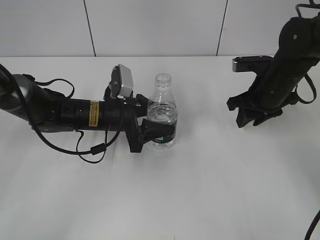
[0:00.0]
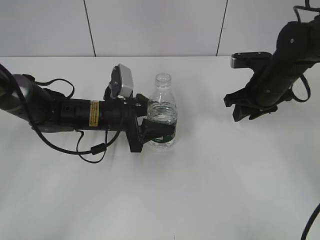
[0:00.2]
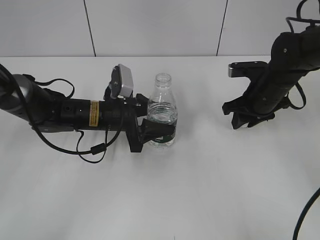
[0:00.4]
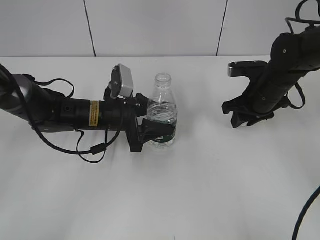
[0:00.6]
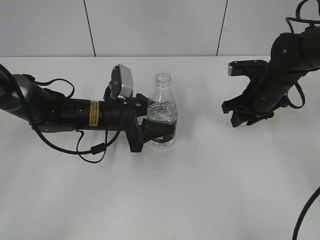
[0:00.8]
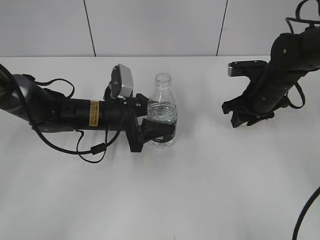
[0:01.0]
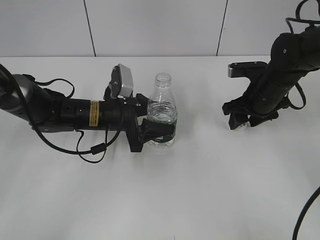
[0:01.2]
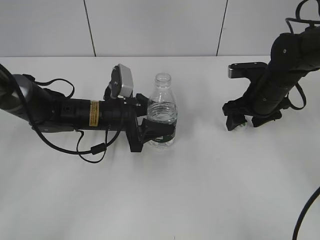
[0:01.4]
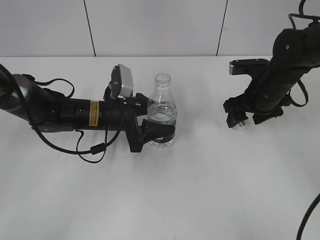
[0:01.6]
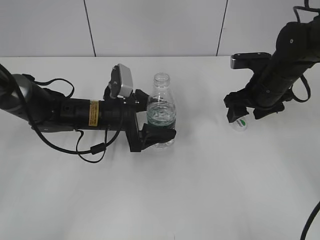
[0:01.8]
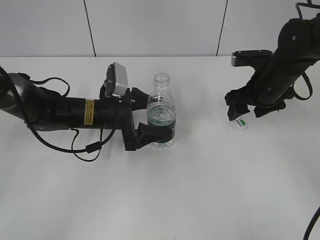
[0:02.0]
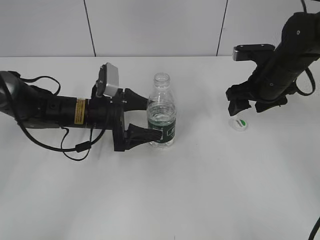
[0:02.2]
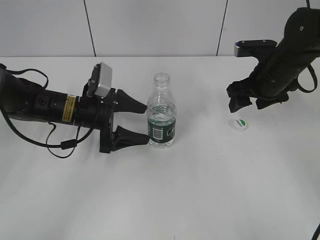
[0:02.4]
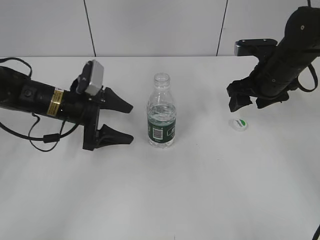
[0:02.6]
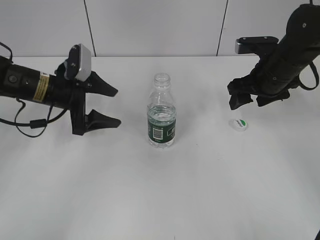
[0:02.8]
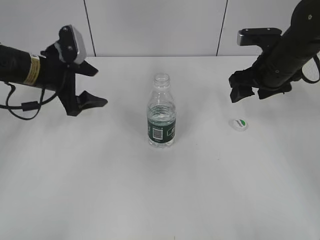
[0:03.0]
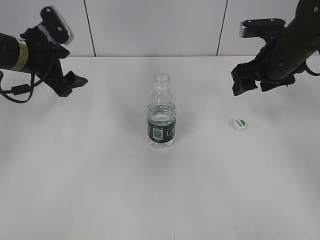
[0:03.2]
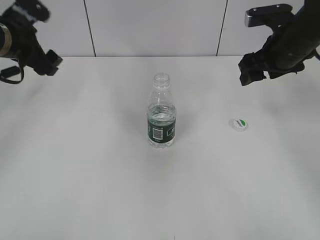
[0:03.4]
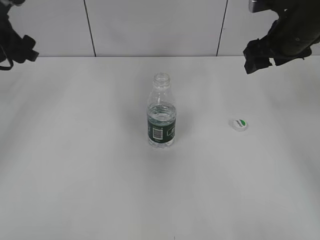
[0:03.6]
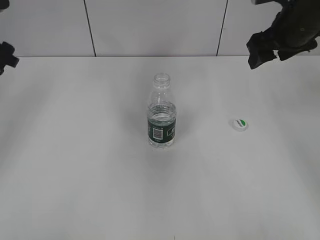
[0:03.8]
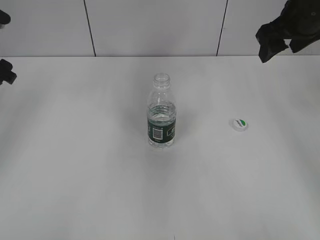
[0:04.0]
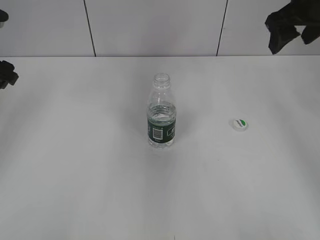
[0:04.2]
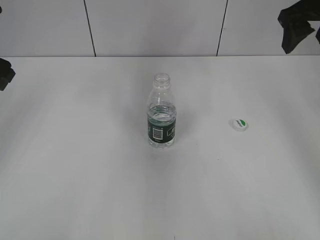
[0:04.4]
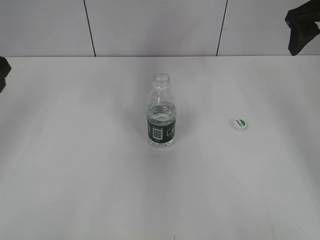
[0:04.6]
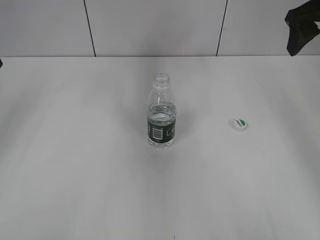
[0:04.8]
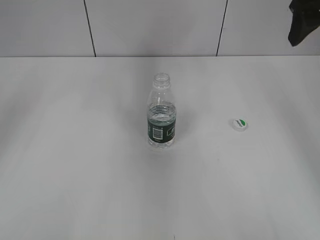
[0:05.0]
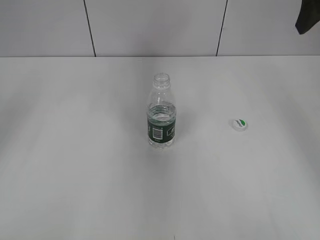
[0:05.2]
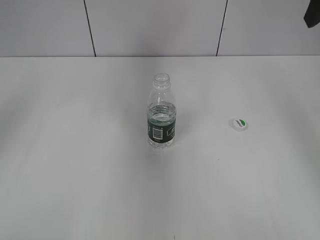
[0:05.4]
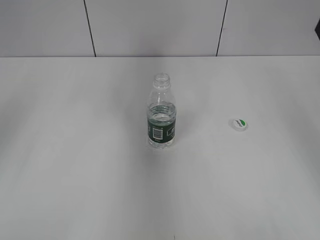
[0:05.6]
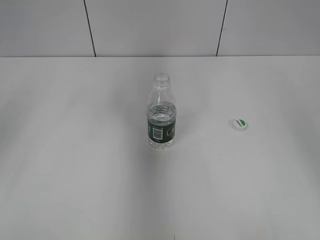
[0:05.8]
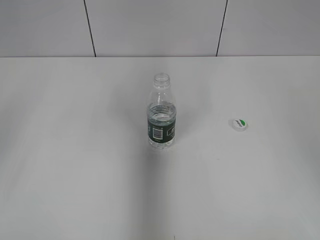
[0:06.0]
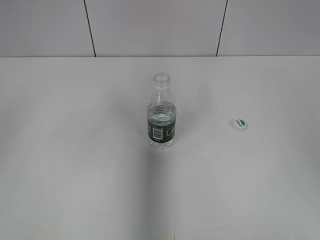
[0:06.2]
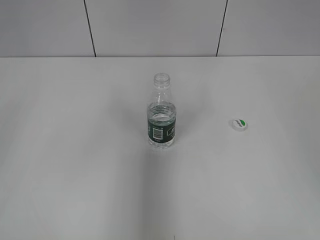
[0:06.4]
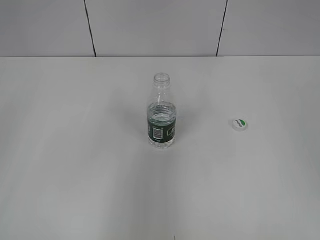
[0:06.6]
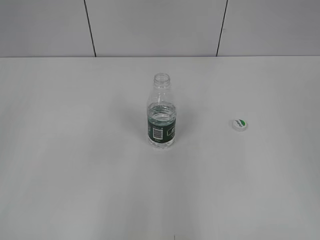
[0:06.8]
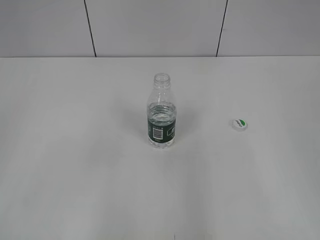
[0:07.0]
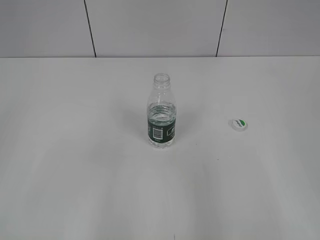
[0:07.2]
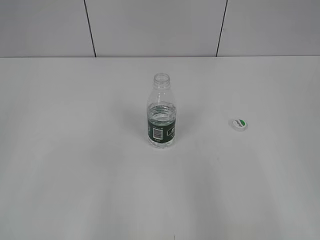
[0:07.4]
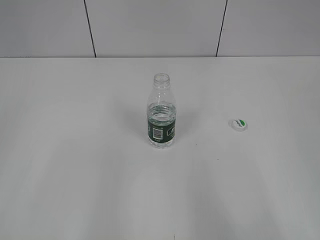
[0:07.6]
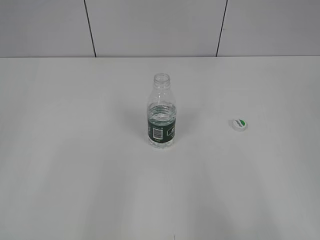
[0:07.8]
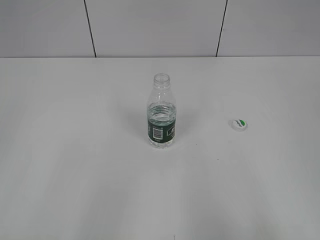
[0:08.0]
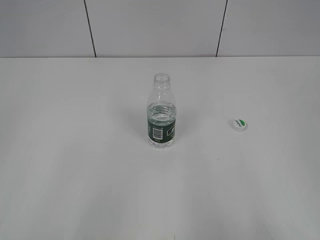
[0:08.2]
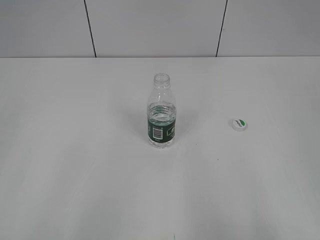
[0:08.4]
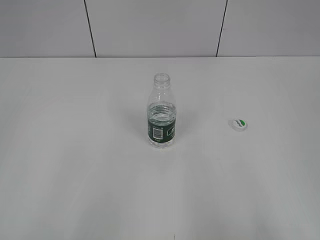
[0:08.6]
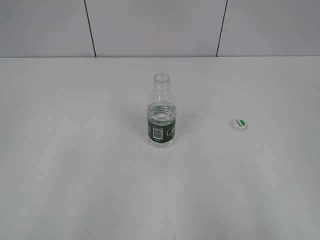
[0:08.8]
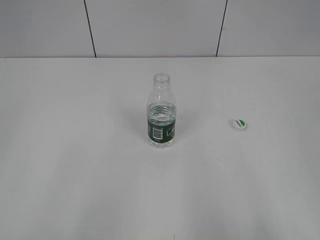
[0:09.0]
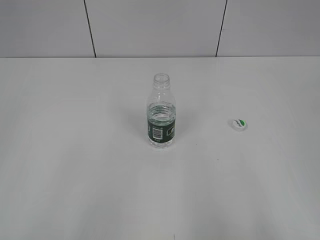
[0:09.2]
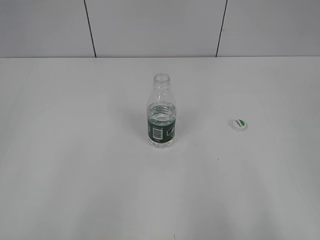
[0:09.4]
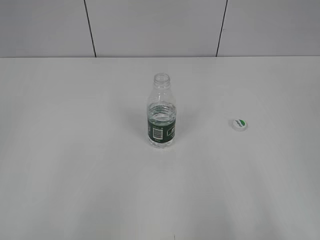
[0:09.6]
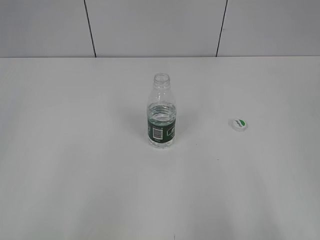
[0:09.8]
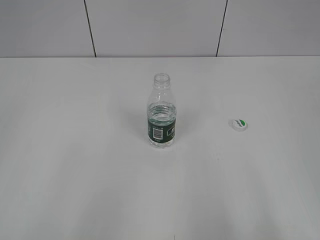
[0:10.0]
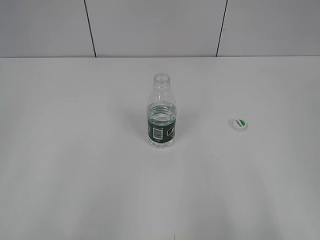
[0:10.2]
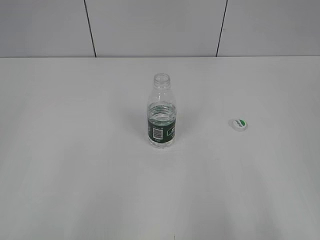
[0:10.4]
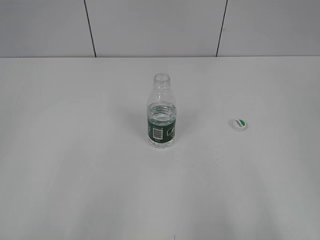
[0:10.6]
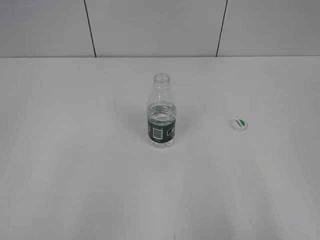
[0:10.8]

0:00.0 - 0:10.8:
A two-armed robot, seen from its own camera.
0:00.0 - 0:01.6: The right gripper opens.
0:01.6 - 0:03.0: The left gripper goes roughly 15 cm to the left and upward, and opens up. The right gripper moves upward, roughly 5 cm.
0:03.0 - 0:04.6: The right gripper shifts about 15 cm upward, while the left gripper moves upward, to the left and backward, some 15 cm.
0:04.6 - 0:06.2: Both grippers travel together backward, some 15 cm.
0:06.2 - 0:07.8: The right gripper heads backward and downward, covering about 20 cm; the left gripper moves backward, approximately 15 cm.

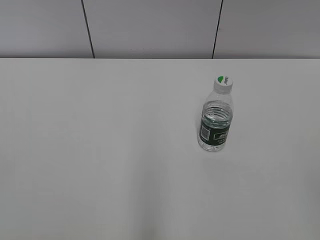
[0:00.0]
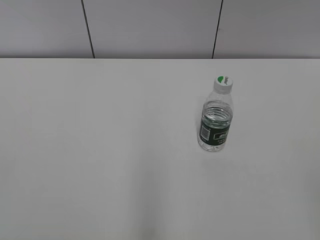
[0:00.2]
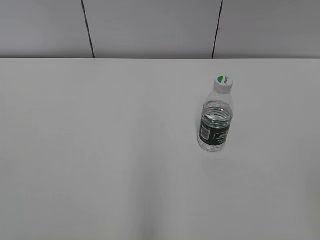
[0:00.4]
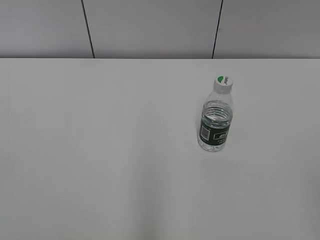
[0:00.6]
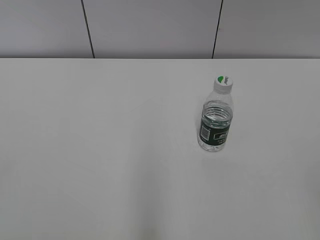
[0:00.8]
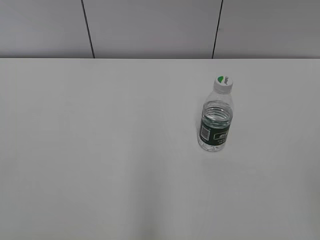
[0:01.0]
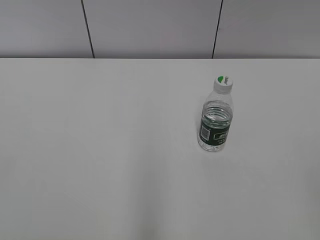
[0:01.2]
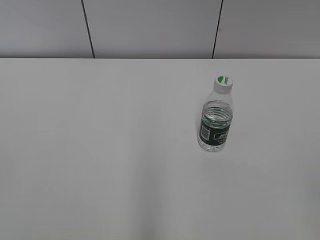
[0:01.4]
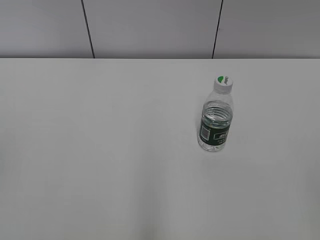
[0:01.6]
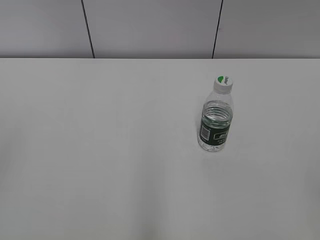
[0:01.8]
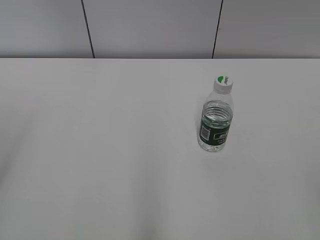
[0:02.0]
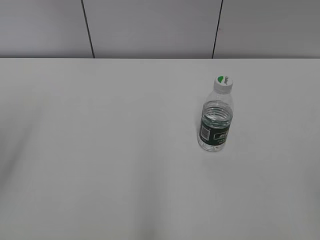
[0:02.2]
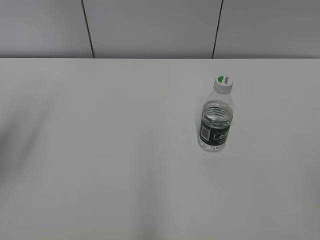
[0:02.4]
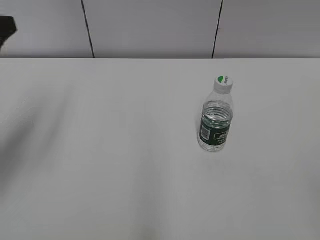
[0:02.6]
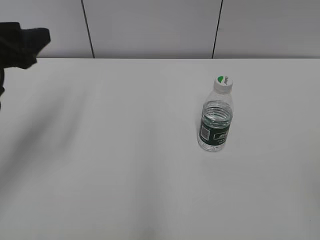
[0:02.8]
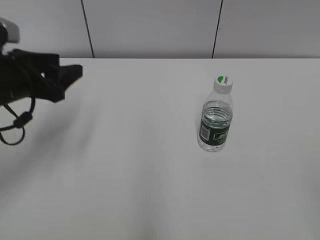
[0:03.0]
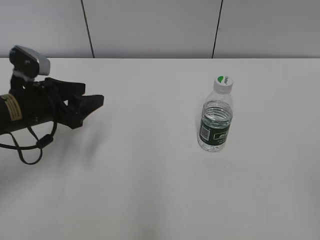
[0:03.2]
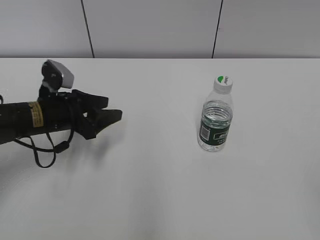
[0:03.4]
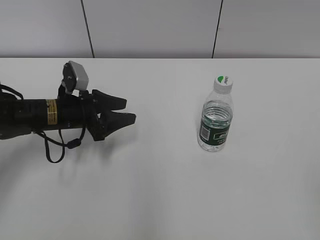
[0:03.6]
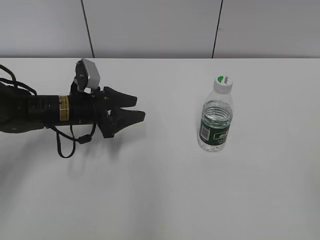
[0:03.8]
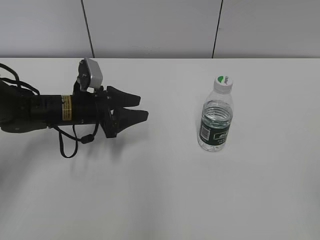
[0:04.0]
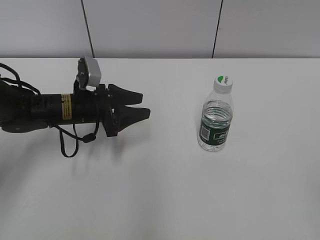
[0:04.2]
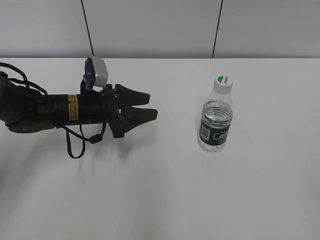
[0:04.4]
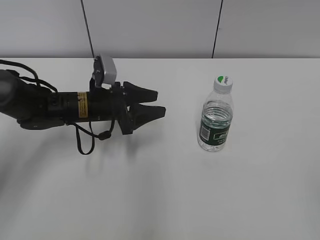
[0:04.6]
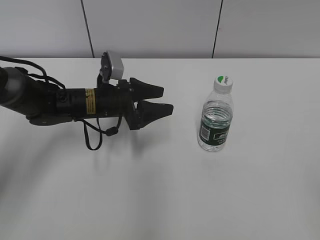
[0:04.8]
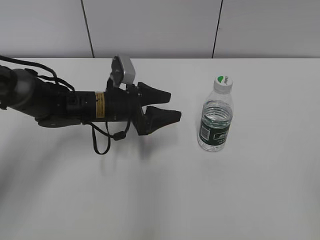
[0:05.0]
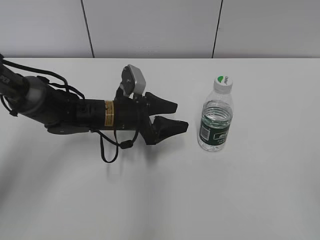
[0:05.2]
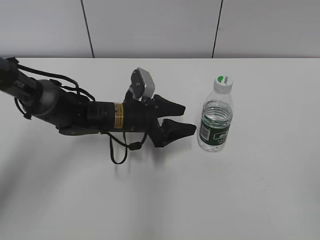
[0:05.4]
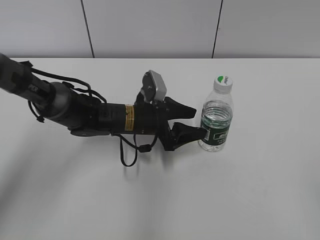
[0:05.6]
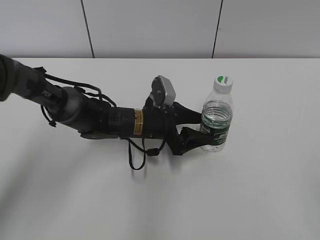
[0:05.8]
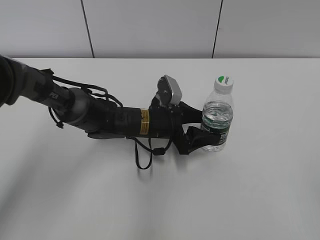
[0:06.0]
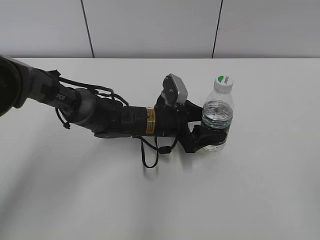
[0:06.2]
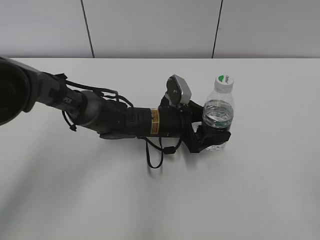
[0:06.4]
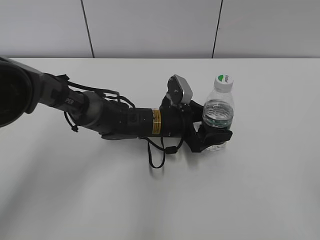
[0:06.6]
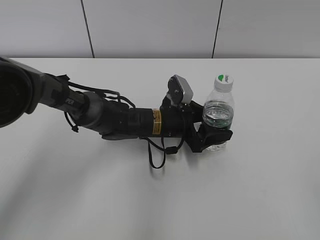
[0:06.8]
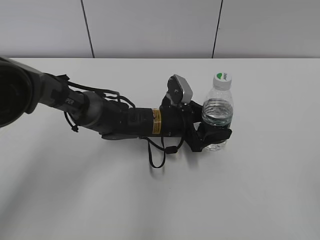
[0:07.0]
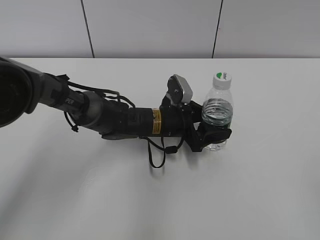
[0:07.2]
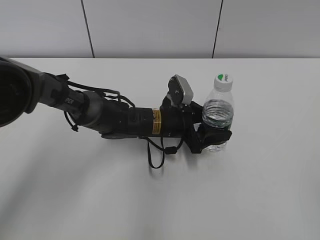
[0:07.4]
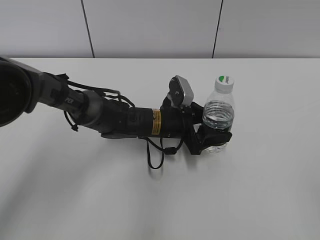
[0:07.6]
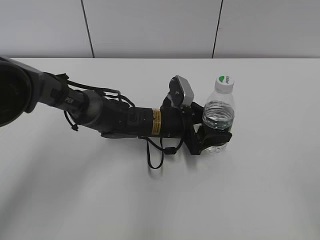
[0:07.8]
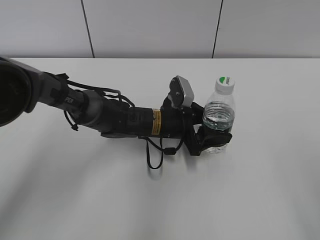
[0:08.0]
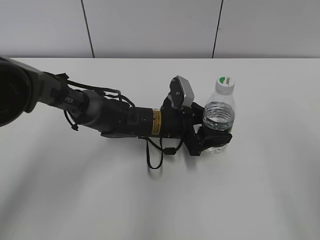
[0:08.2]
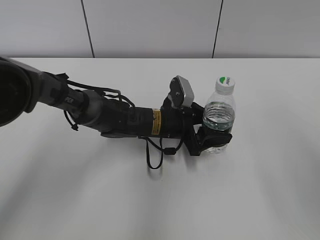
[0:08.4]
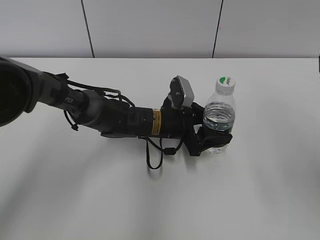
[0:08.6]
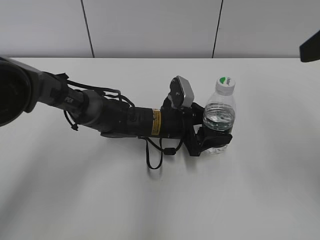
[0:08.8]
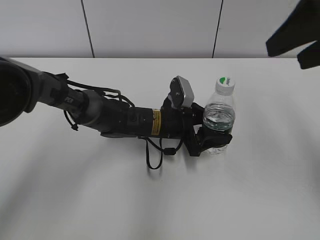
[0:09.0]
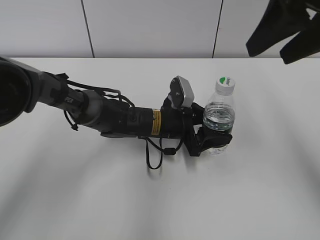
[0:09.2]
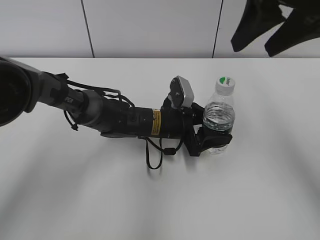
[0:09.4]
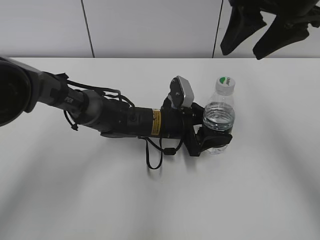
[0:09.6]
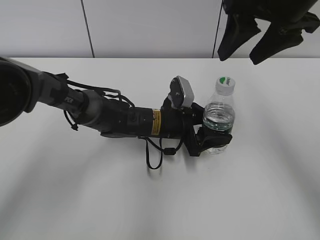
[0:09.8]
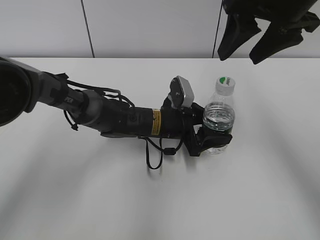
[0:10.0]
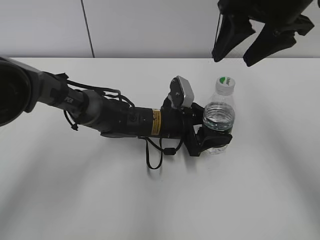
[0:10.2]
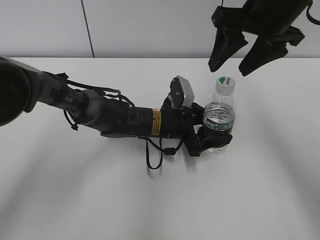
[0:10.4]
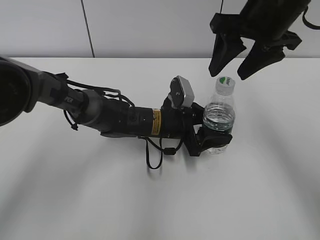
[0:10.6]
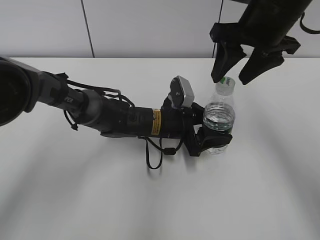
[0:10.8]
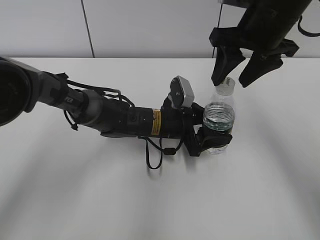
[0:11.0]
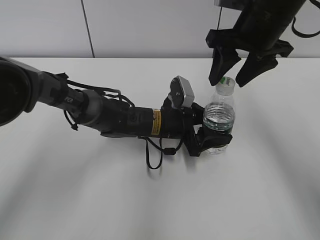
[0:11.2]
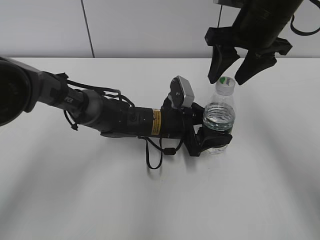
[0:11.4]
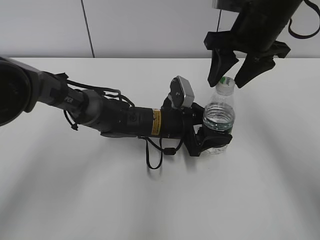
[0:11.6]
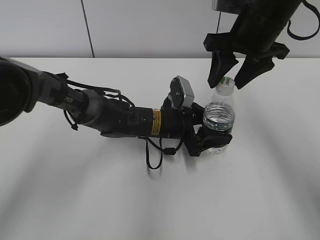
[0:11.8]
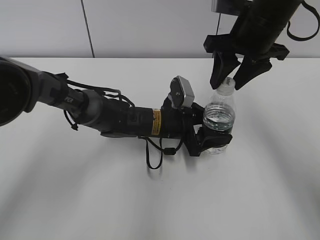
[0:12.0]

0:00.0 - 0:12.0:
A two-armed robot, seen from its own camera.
Step, 0:00.0 - 0:07.2: Grab the C'estbon with the left hand.
0:01.6 - 0:03.0: The left gripper goes about 30 cm forward and downward.
0:03.0 - 0:04.4: The left gripper is displaced downward, to the right and forward by some 15 cm.
0:04.4 - 0:06.0: The left gripper moves to the right, roughly 15 cm, and opens its fingers.
0:06.0 - 0:07.6: The left gripper closes its fingers.
0:07.6 - 0:09.0: The right gripper moves forward, about 25 cm.
0:09.0 - 0:10.4: The right gripper goes about 15 cm forward, to the left and downward.
0:10.4 - 0:12.0: The right gripper shifts by about 5 cm, and closes its fingers.
